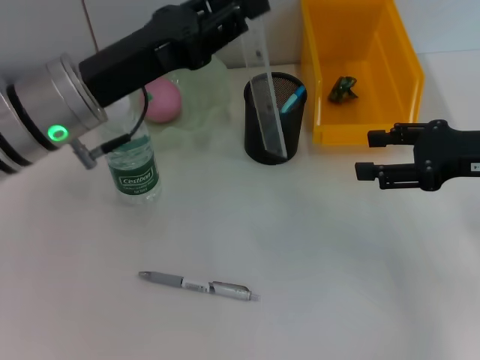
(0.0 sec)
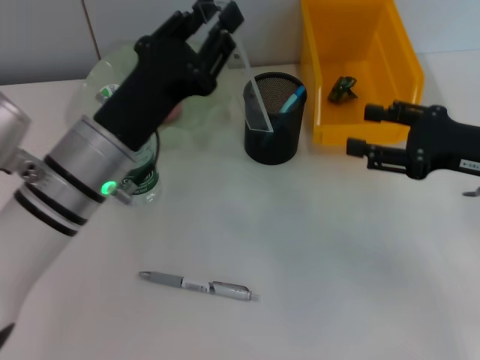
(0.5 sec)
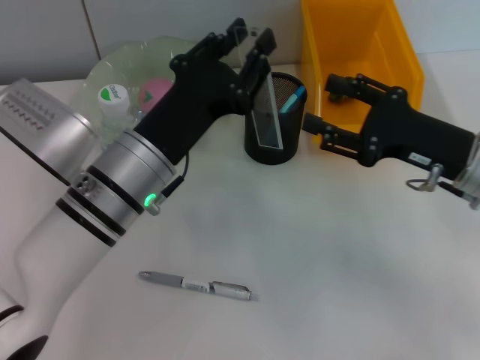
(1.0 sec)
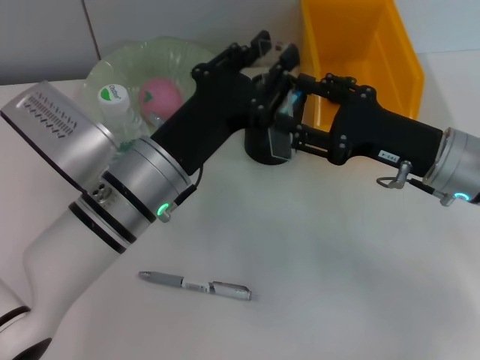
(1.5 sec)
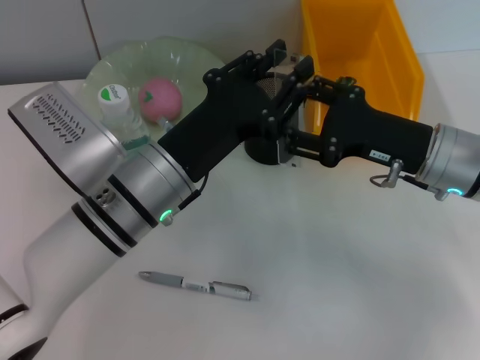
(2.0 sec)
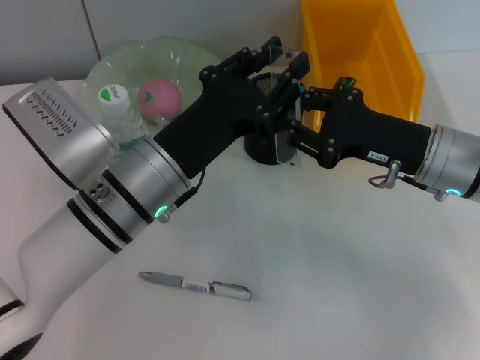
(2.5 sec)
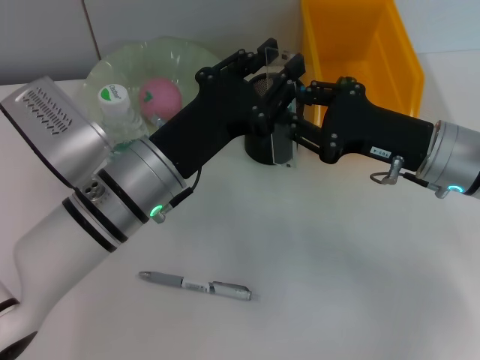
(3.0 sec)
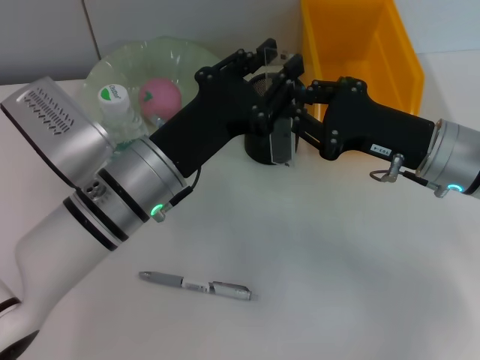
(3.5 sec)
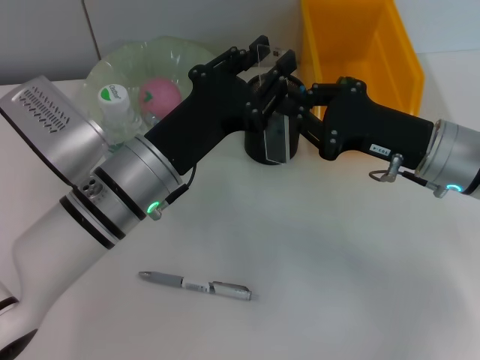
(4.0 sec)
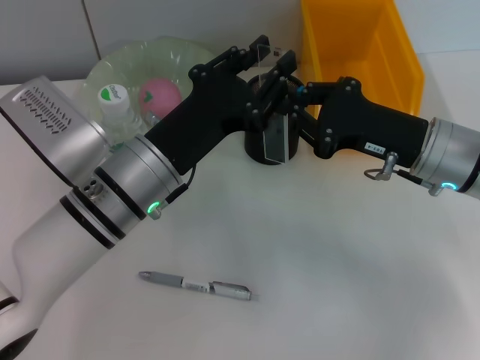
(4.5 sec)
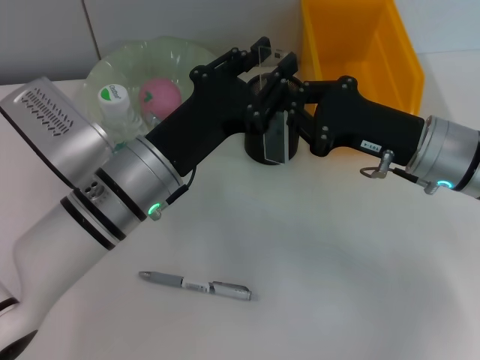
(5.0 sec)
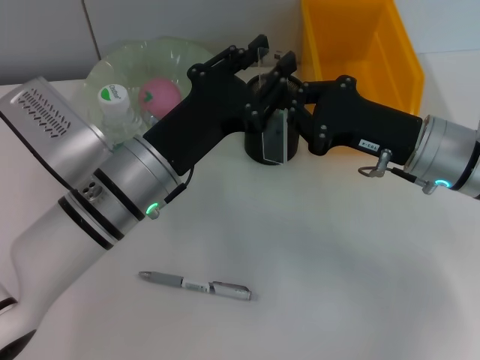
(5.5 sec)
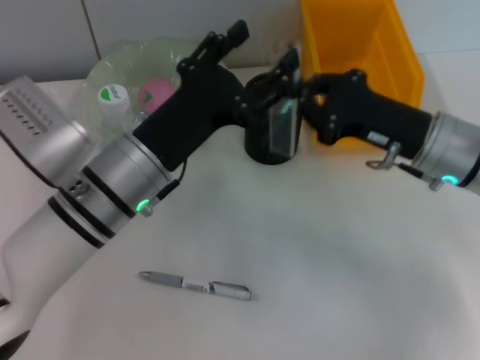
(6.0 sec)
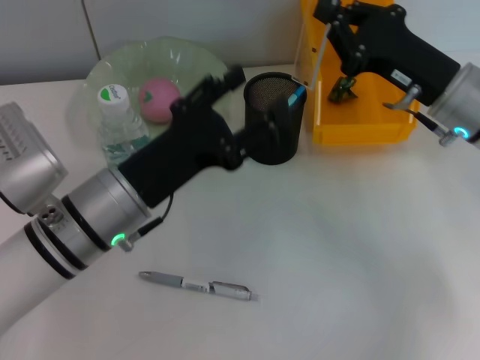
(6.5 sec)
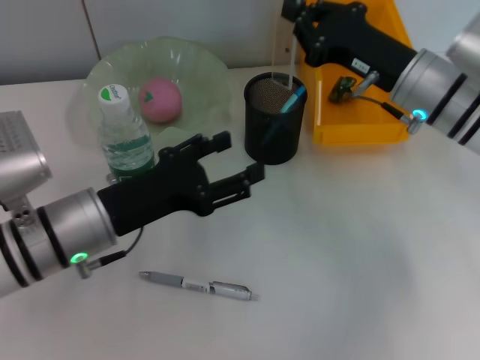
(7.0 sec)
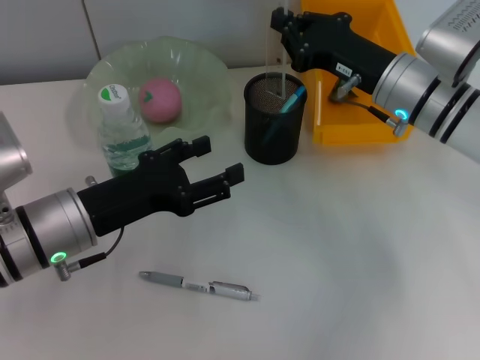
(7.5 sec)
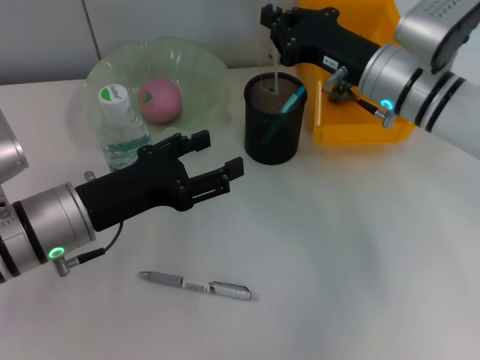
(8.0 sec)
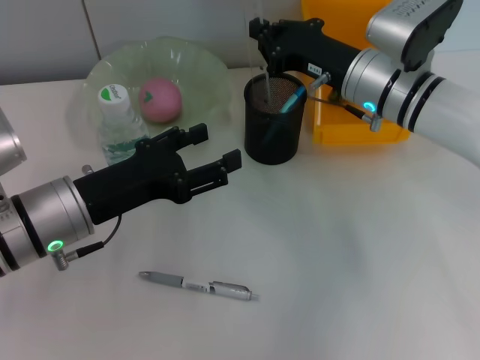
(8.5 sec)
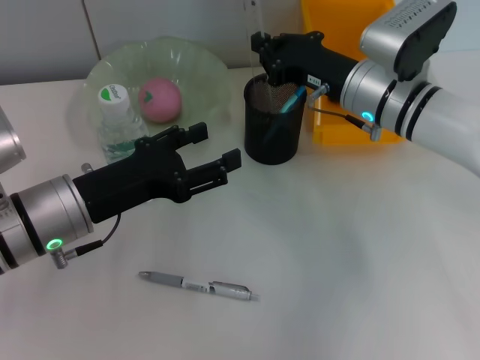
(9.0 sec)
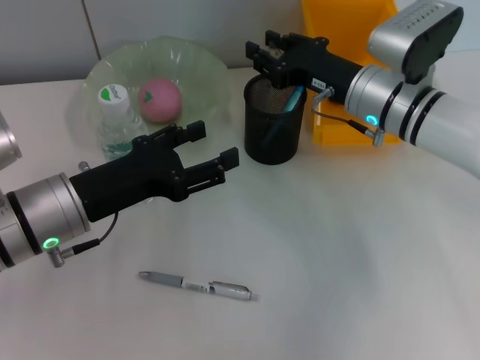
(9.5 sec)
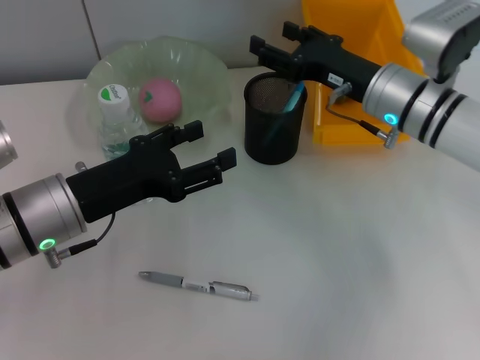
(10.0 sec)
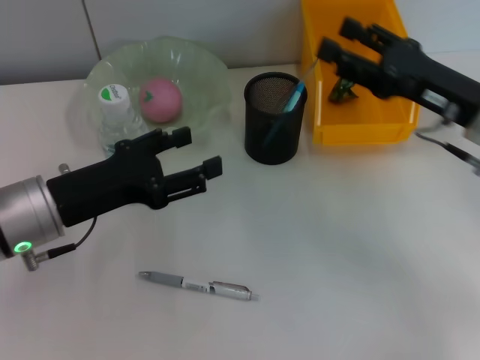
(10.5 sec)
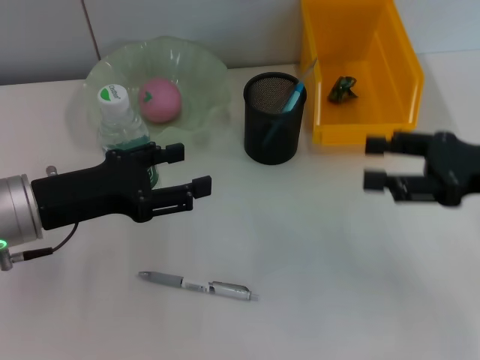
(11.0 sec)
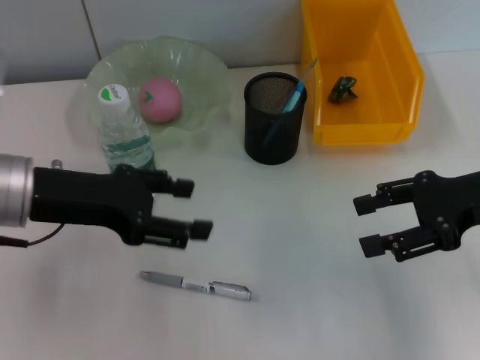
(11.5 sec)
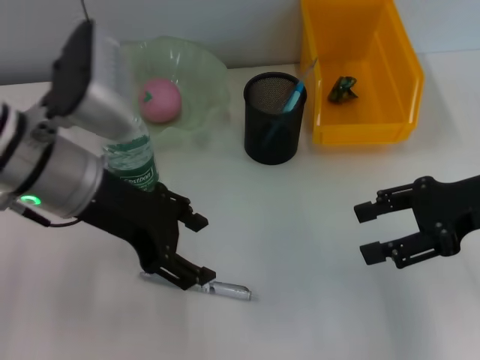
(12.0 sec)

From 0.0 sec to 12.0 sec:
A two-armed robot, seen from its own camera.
Step, from 0.0 sec to 5.5 sec: Pass the ruler from the left hand to the right hand.
Step, from 6.0 sec to 10.0 sec: Place the ruler into the pen holder with the right hand.
From 0.0 sec to 2.0 sec: The right gripper goes approximately 10 cm to the left. The left gripper goes approximately 10 cm to the right and downward.
From 2.0 sec to 4.0 sec: The right gripper closes.
From 4.0 sec to 6.0 sec: Neither gripper changes place.
From 6.0 sec to 8.0 sec: The right gripper heads forward, covering roughly 5 cm, while the left gripper travels to the left by approximately 10 cm.
From 8.0 sec to 10.0 sec: The right gripper opens up.
From 10.0 sec to 12.0 sec: The right gripper travels to the right and backward by about 15 cm; the left gripper is displaced upward by approximately 10 cm.

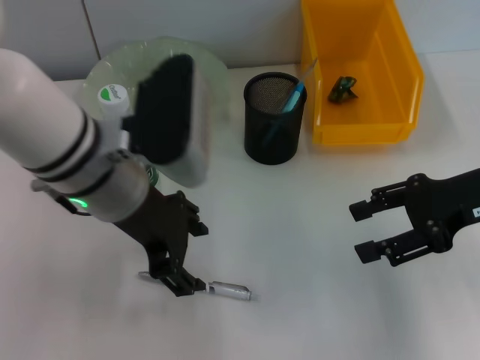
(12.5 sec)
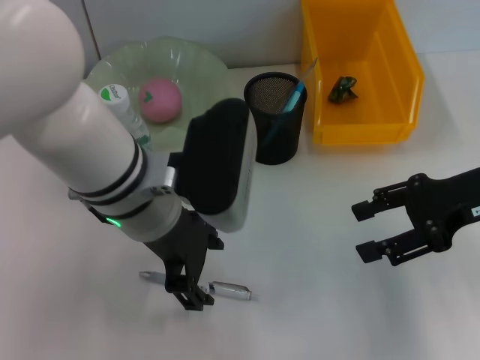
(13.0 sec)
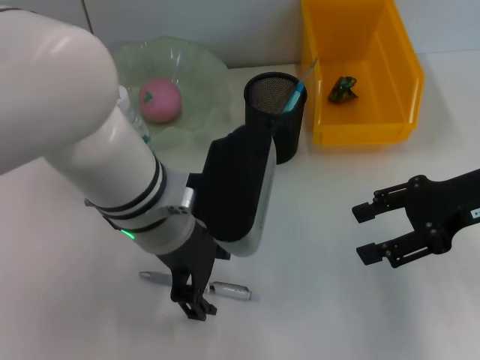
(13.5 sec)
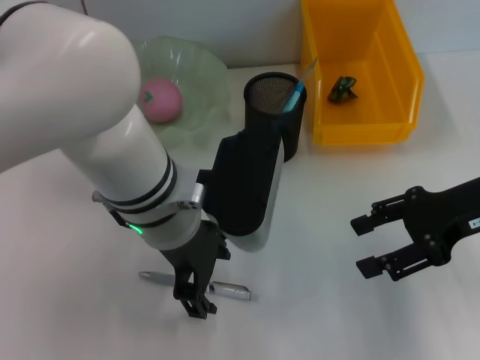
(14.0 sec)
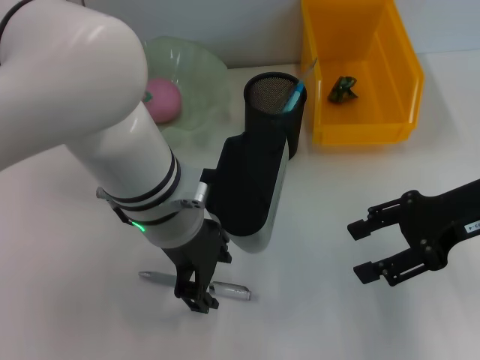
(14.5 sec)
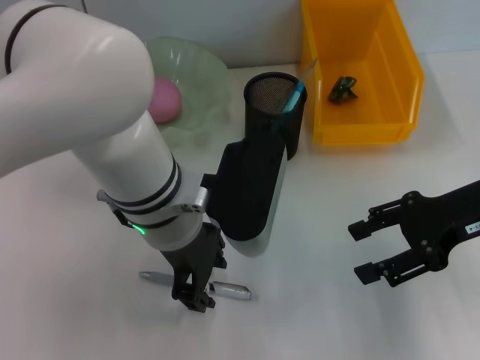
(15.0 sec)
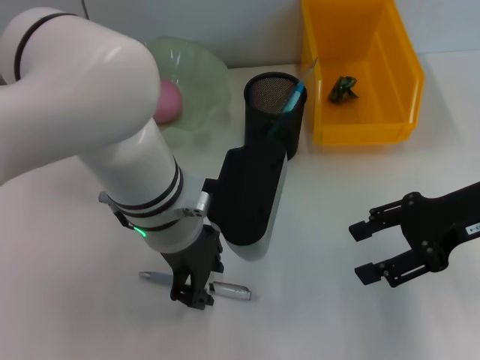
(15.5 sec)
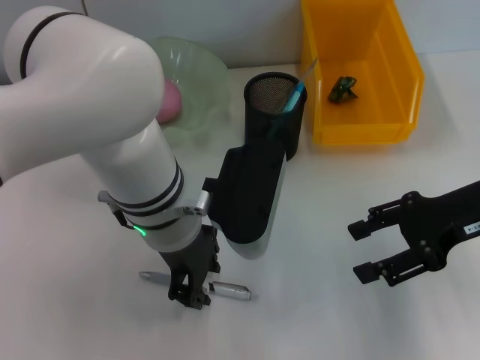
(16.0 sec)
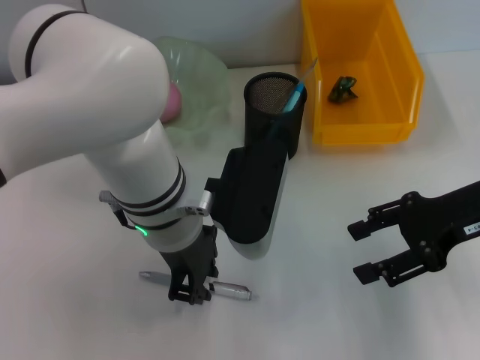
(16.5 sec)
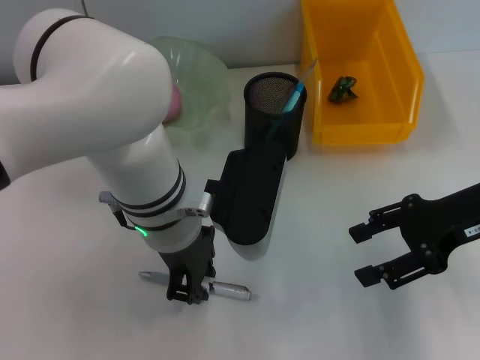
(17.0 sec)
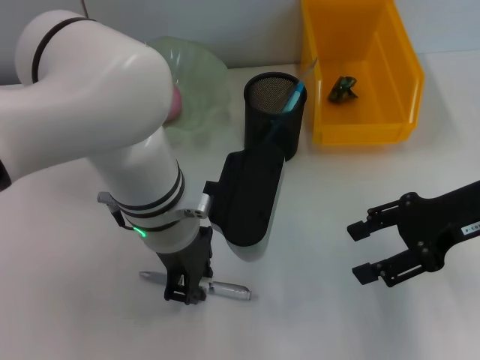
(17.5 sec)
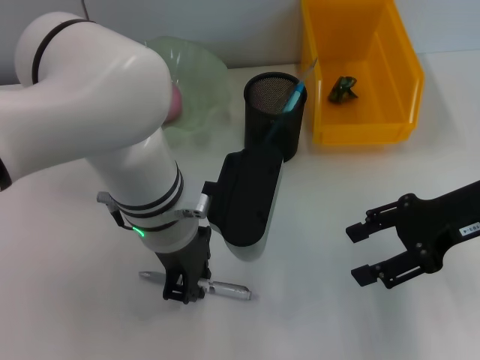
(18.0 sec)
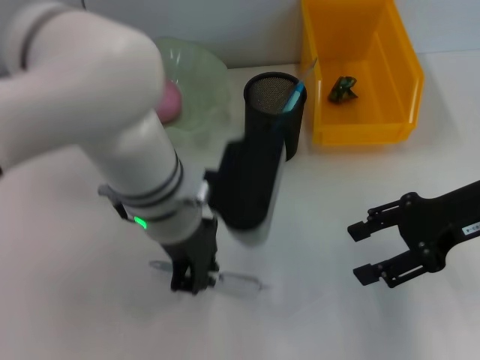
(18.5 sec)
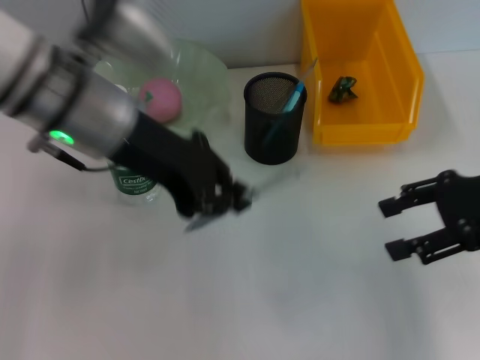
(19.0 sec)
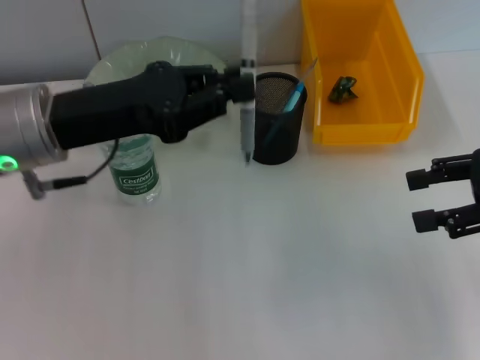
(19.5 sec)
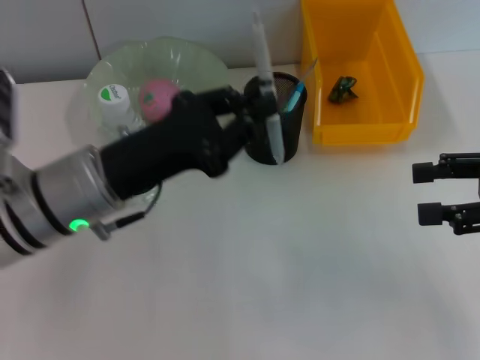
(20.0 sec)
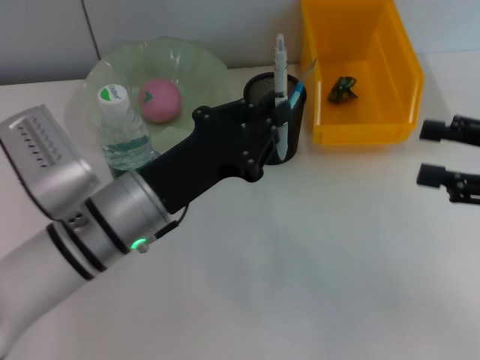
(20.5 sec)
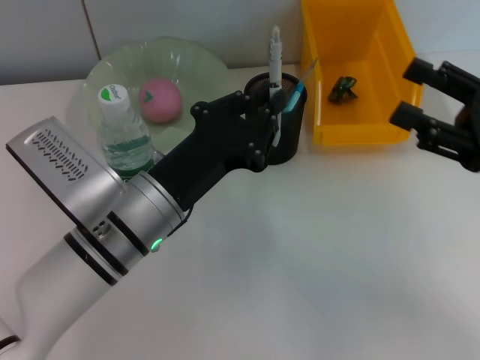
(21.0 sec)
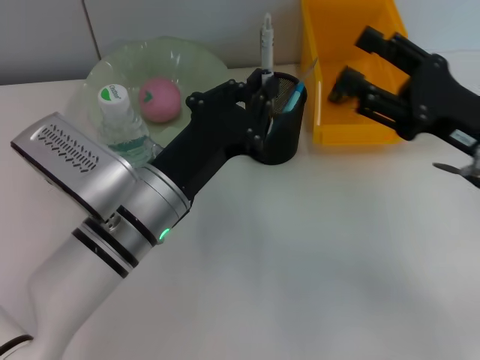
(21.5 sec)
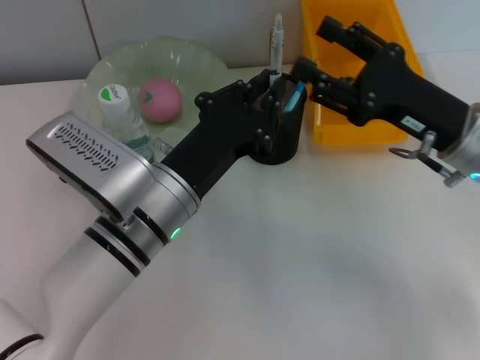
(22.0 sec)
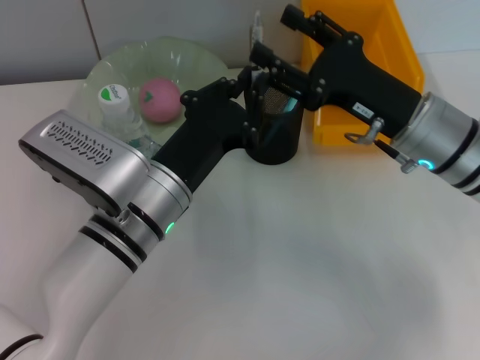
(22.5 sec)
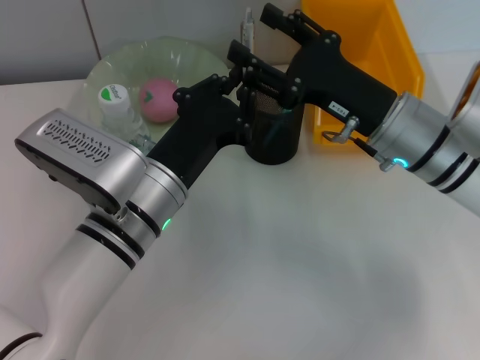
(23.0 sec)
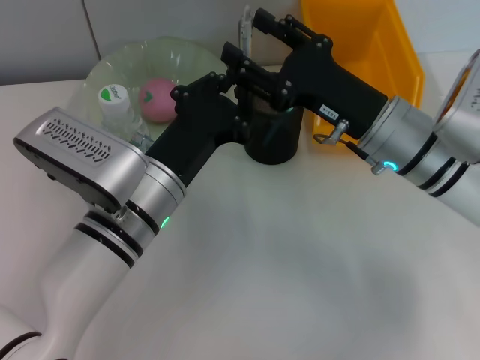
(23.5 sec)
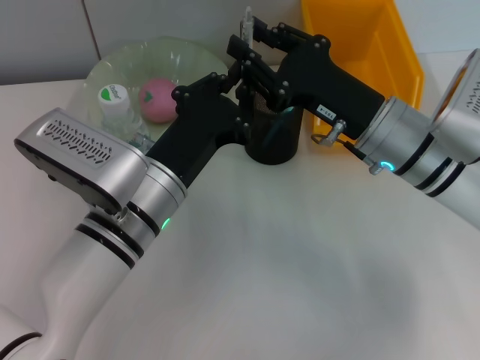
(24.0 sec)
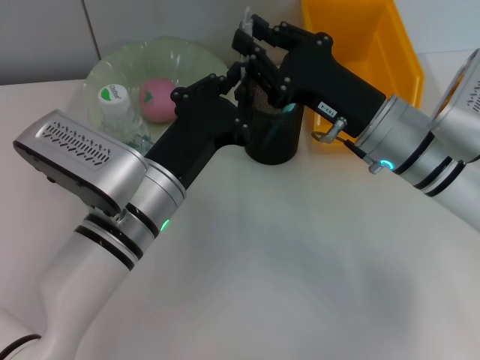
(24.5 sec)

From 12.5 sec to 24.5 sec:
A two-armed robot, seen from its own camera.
Step, from 12.5 sec to 18.0 sec: Grab the gray spring-action pen with the left hand.
From 12.5 sec to 14.5 sec: The left gripper shifts approximately 5 cm to the right.
From 14.5 sec to 16.5 sec: The left gripper closes up.
From 16.5 sec to 18.5 sec: Both grippers stay about where they are.
From 18.5 sec to 20.5 sec: The left gripper shifts about 10 cm to the left and downward. The right gripper goes approximately 10 cm to the right and backward.
From 20.5 sec to 22.5 sec: The right gripper travels to the left and forward by roughly 15 cm.
From 22.5 sec to 24.5 sec: The right gripper closes.

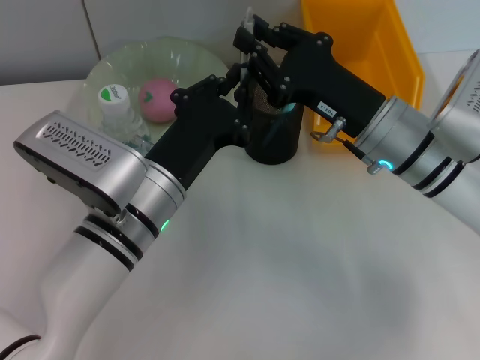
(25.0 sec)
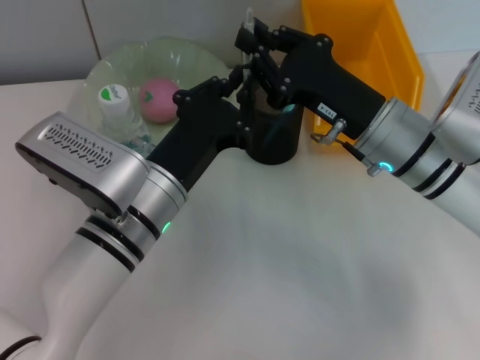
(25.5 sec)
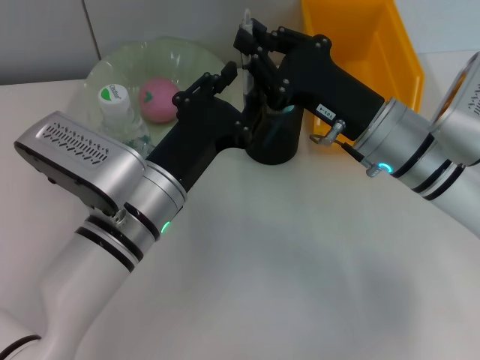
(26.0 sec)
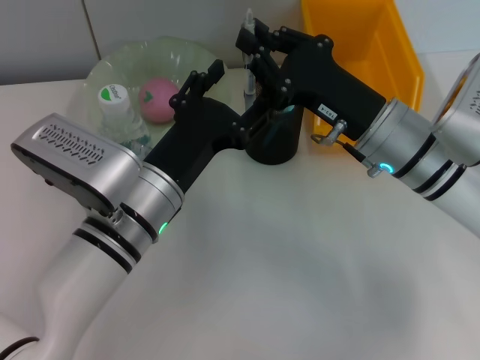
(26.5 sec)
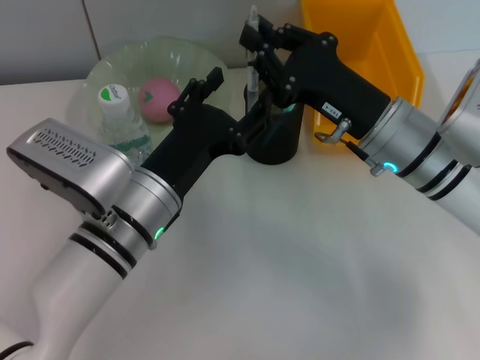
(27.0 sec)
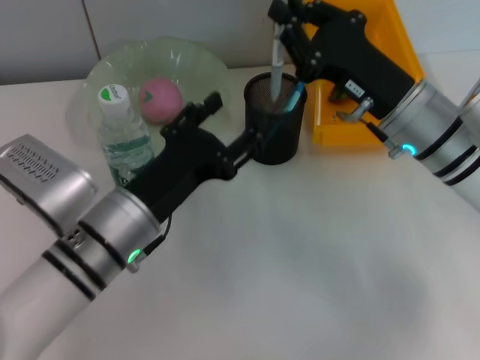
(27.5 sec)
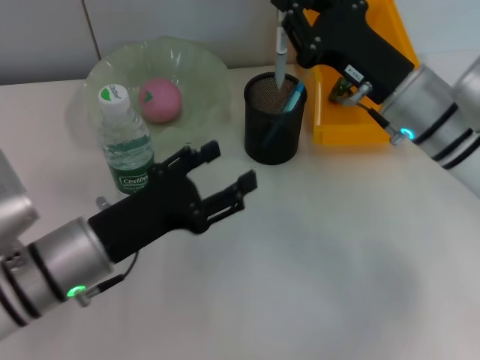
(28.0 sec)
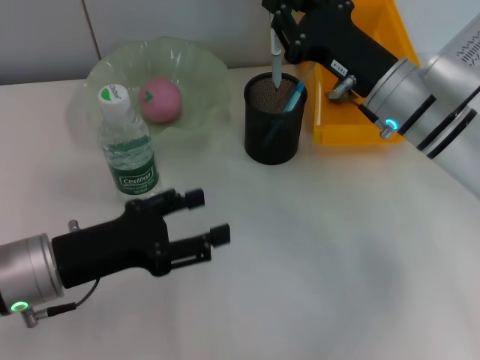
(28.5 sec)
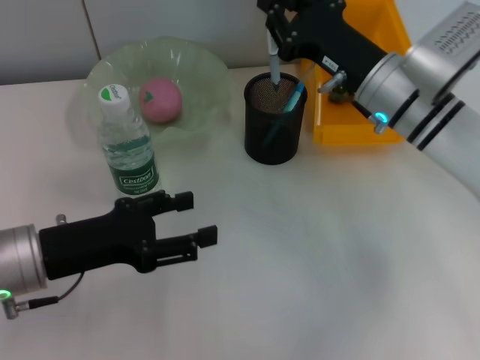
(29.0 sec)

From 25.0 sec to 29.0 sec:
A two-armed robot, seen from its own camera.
From 25.0 sec to 27.0 sec: The left gripper opens its fingers.
From 27.0 sec to 29.0 sec: The left gripper goes approximately 10 cm to the left.
